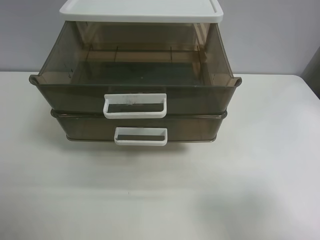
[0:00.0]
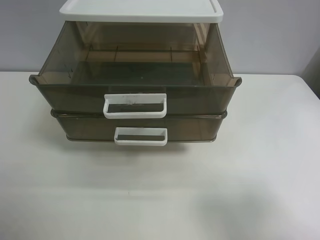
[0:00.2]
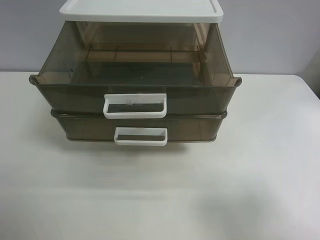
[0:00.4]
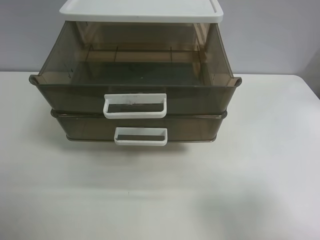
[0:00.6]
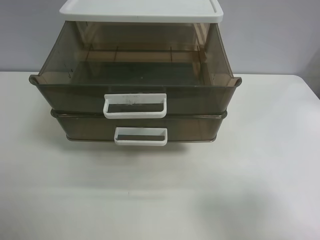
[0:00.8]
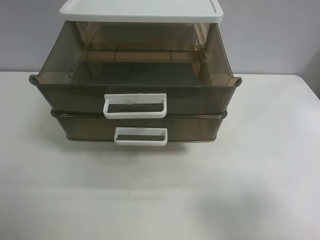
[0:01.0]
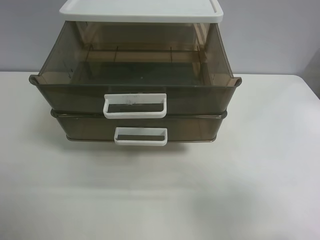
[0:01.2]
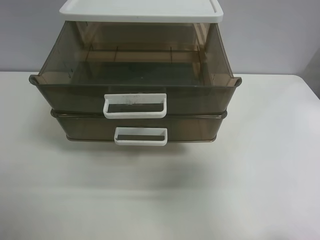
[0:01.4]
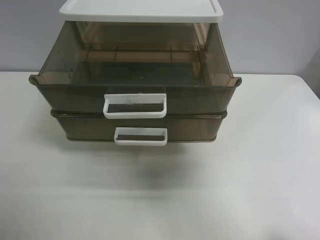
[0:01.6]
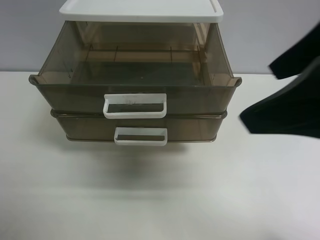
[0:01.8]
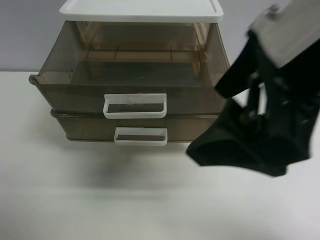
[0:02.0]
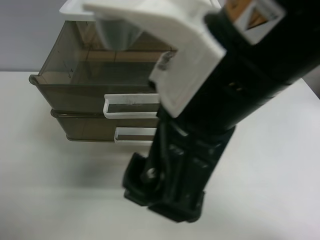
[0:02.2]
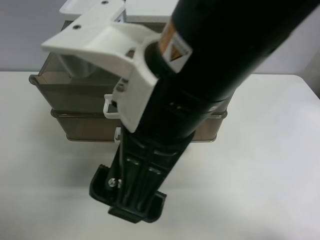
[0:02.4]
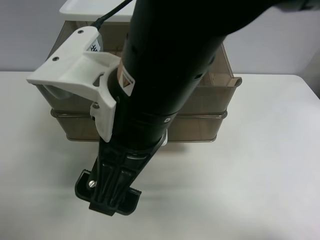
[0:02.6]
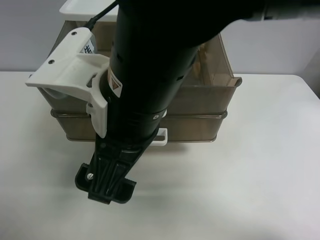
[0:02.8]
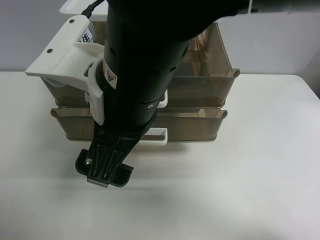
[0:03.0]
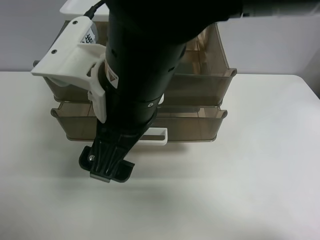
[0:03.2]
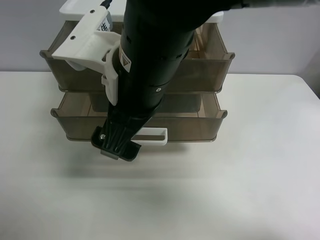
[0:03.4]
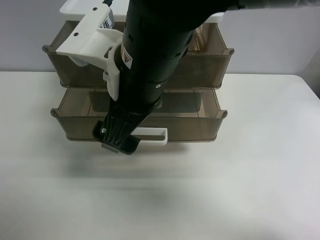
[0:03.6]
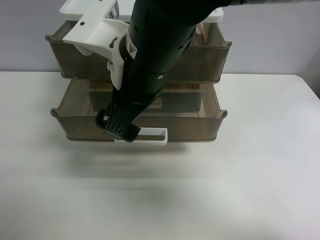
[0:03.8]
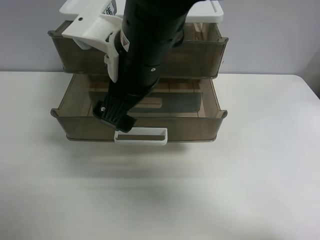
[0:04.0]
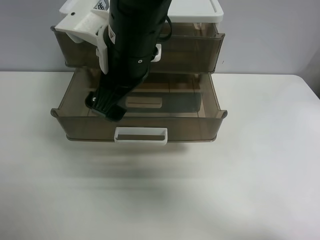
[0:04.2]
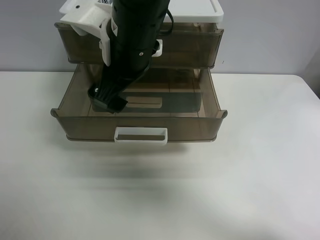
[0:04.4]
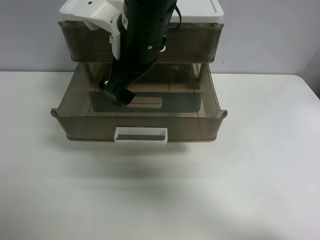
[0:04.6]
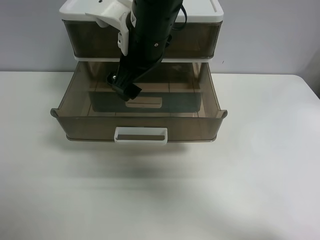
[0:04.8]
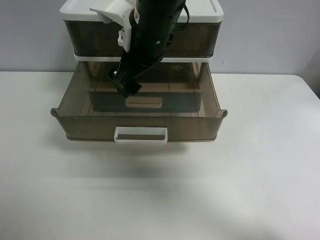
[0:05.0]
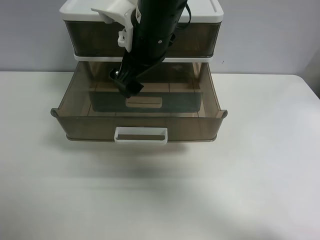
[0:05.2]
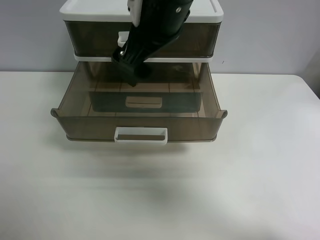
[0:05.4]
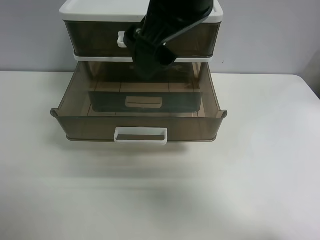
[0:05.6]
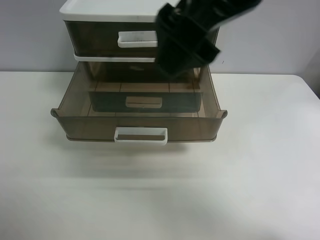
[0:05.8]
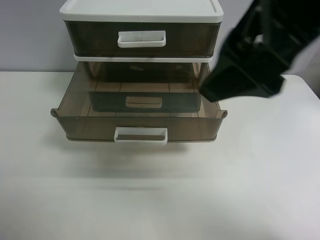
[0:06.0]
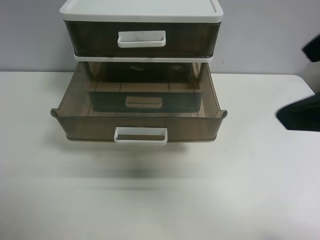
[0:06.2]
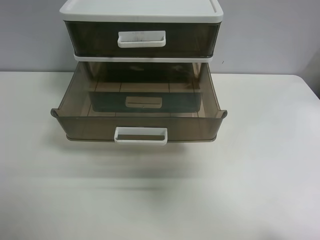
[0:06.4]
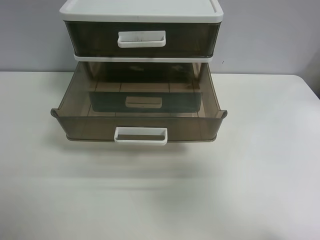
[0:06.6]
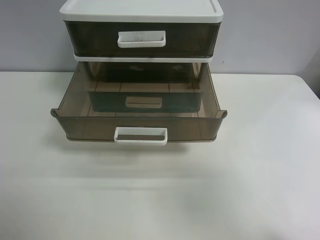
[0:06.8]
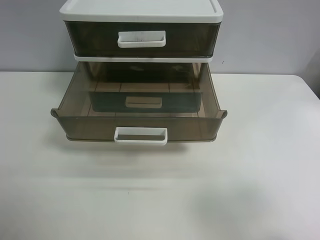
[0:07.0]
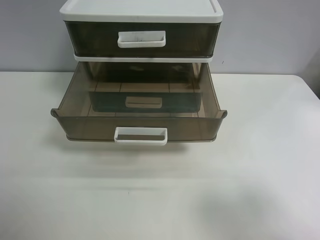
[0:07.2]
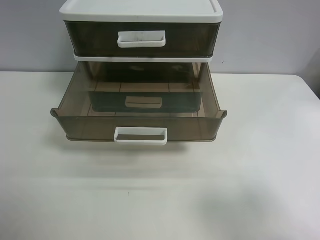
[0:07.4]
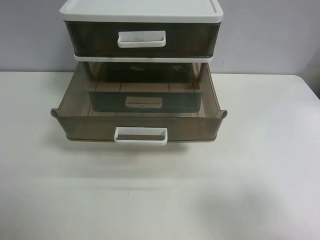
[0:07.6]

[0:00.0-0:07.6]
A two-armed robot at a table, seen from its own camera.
Task of the whole recording: close the top drawer.
Step, 0:00.0 to 0:02.8: Use the right gripper to touch the topmost layer of the storage cabinet.
Step, 0:03.0 to 0:05.2: Push the top drawer closed.
0:00.0 to 0:01.6: The right gripper heads upward, forward and to the left, covering roughly 15 cm.
0:01.6 to 0:03.0: The right gripper moves to the left, roughly 25 cm.
0:03.0 to 0:04.6: The right gripper is displaced forward by some 10 cm.
0:04.6 to 0:06.0: The right gripper goes about 20 cm to the right, backward and upward.
0:06.0 to 0:07.6: The right gripper travels to the right, backward and downward by approximately 25 cm.
